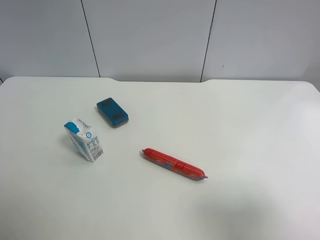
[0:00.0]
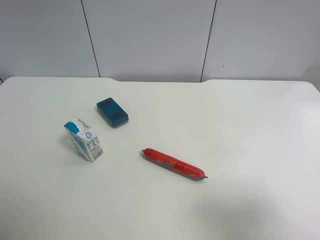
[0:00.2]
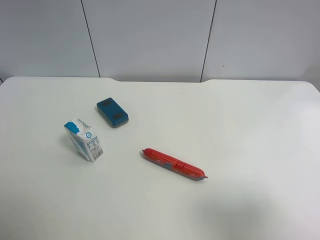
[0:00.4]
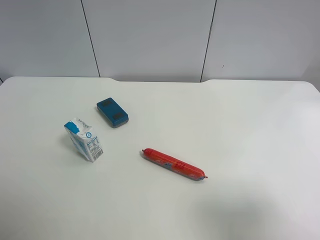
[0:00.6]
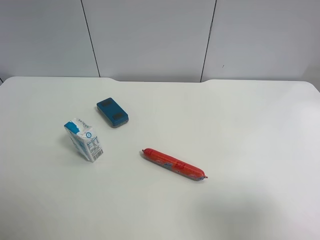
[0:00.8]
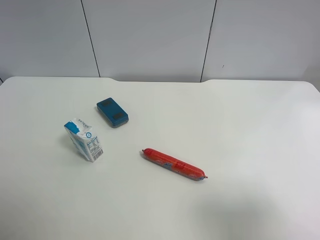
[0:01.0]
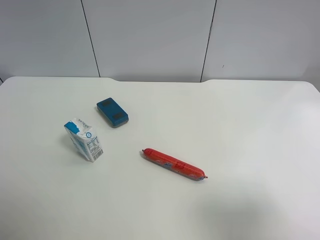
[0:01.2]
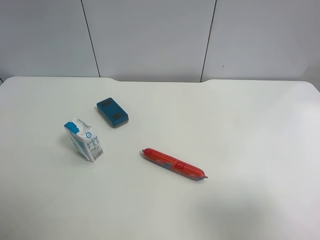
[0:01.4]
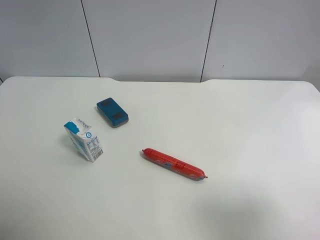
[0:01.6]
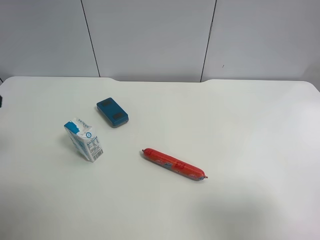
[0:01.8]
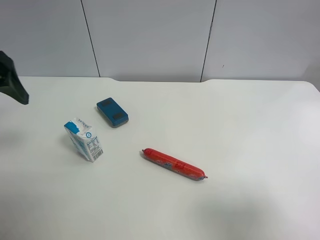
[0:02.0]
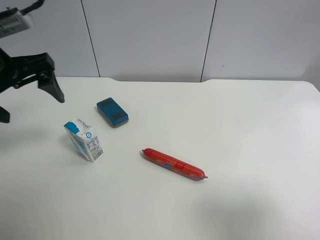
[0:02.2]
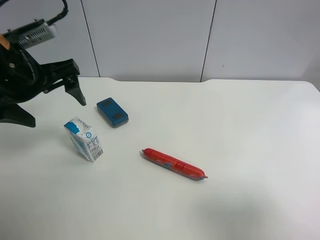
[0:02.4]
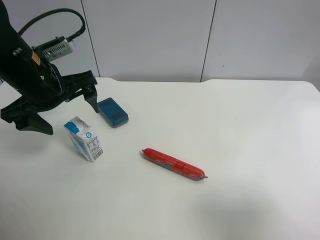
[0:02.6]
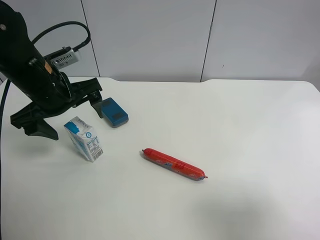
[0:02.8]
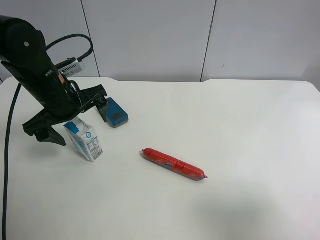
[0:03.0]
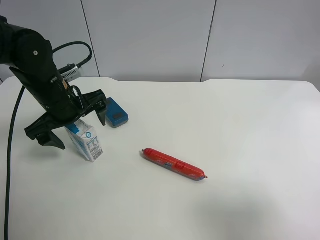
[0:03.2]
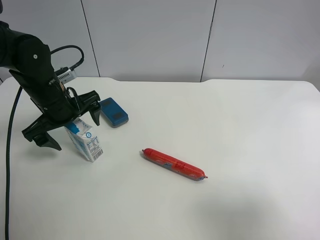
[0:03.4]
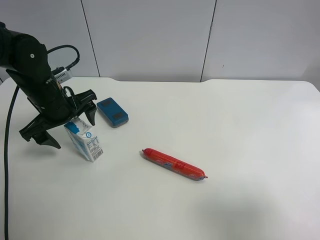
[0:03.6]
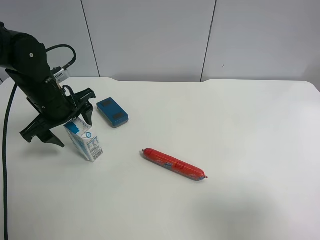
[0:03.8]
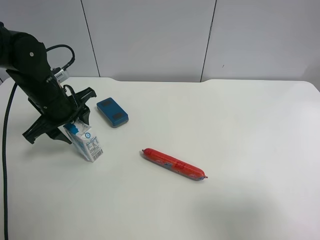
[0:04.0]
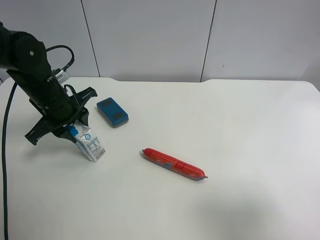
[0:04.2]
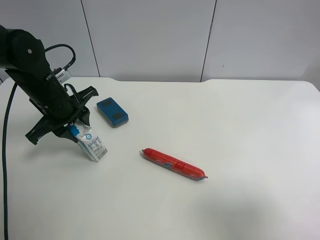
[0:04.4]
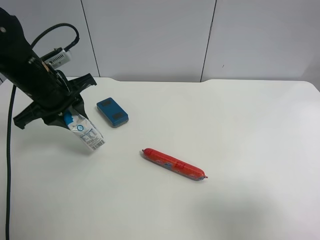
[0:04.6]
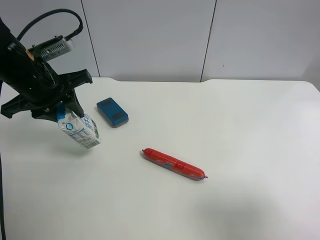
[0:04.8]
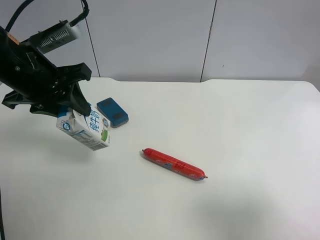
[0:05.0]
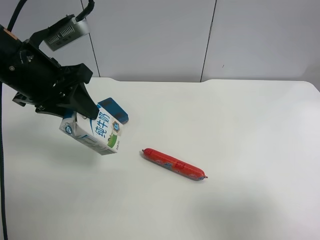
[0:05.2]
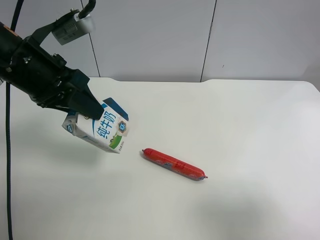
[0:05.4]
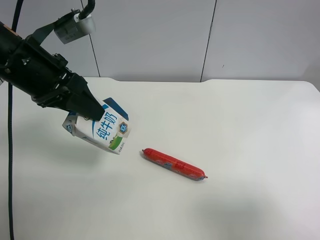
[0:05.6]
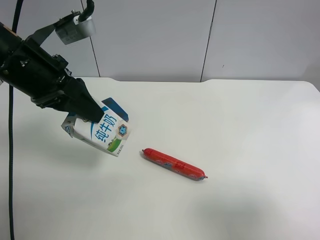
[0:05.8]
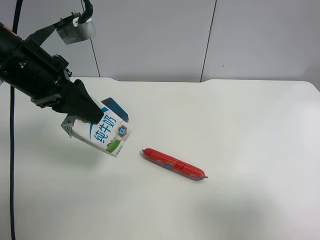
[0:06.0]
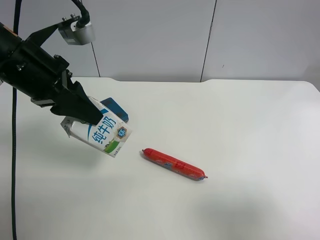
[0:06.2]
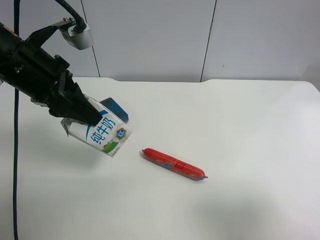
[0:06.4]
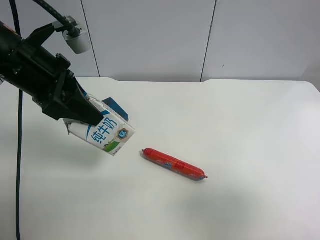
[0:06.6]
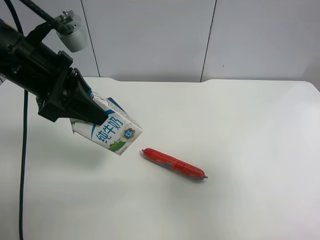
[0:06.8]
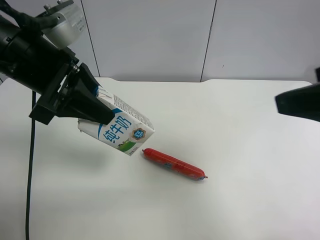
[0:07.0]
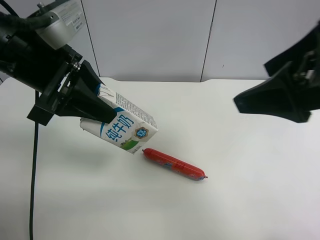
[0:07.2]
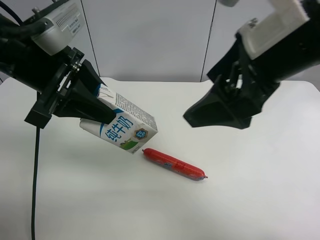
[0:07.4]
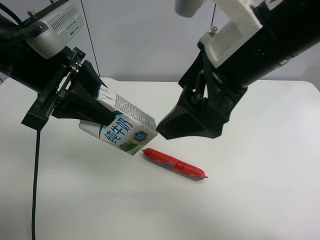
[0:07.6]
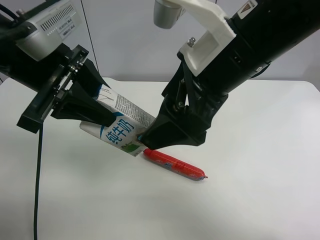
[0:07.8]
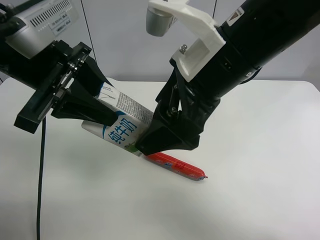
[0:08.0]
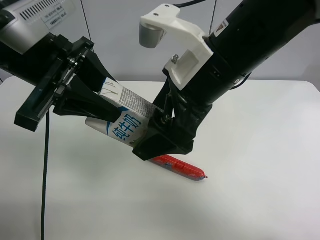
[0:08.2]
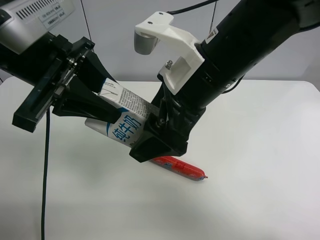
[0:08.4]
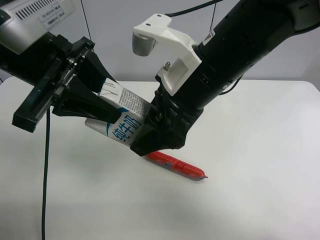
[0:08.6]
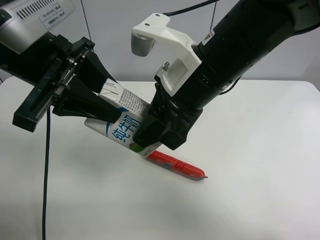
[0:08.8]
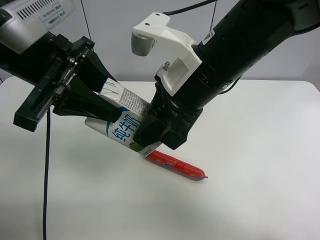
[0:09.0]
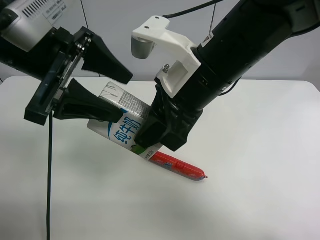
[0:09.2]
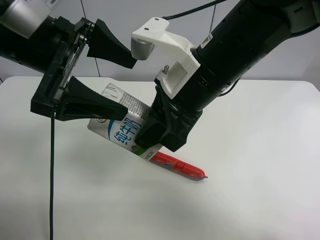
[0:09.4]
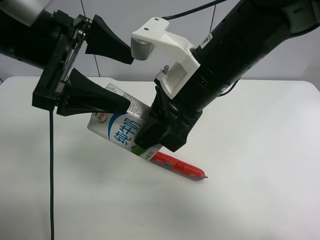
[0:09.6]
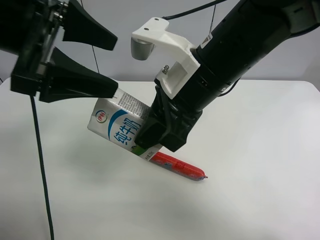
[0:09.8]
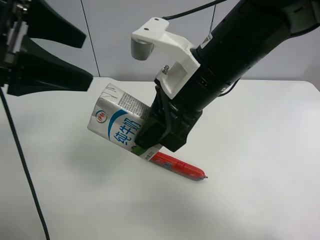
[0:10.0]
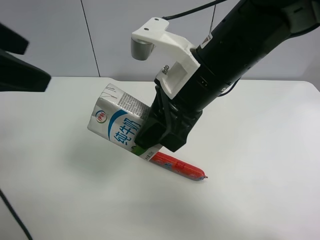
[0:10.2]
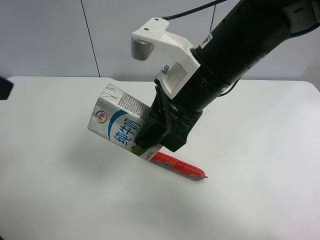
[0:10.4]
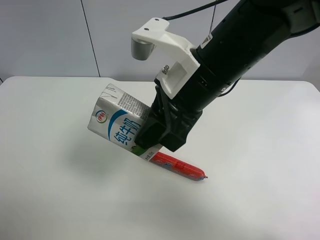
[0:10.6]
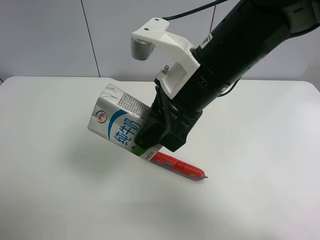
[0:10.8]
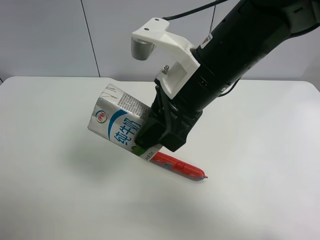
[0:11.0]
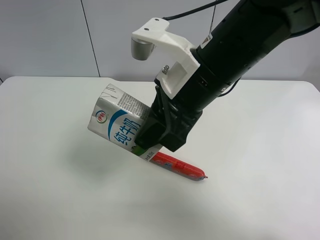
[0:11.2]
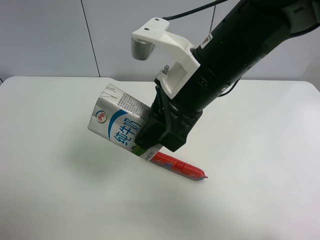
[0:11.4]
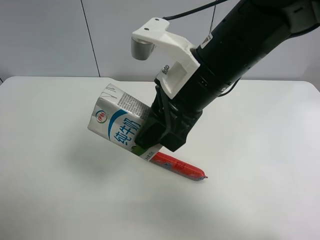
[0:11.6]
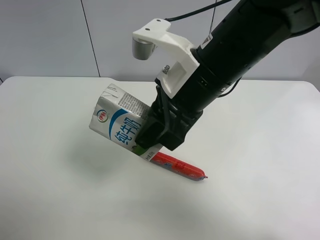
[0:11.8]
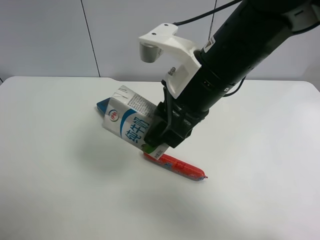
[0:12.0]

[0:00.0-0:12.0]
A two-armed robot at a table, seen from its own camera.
Task of the whole recording: use the left gripper to pick up the item and transfer it from the left gripper to the right gripper.
0:01.6 to 0:03.0: The left gripper heads forward, downward and to the right, covering roughly 25 cm.
0:03.0 to 0:04.4: The left gripper closes up.
0:04.4 to 0:06.0: The left gripper travels upward and backward by about 10 cm.
0:06.0 to 0:07.6: The right gripper moves to the left and forward, roughly 25 cm.
0:07.6 to 0:09.0: The right gripper shifts by approximately 5 cm, and closes its fingers.
0:09.0 to 0:10.4: The left gripper is displaced to the left, backward and upward by approximately 15 cm, and opens up.
0:10.4 to 0:12.0: The left gripper travels backward and downward by approximately 15 cm.

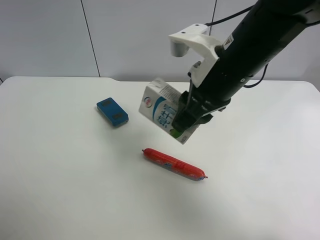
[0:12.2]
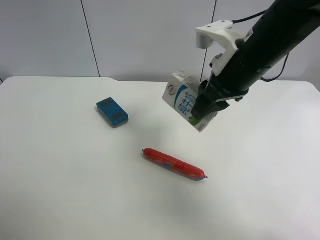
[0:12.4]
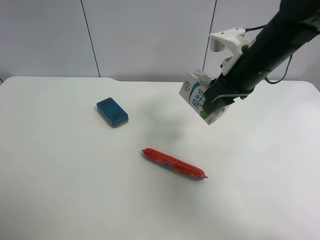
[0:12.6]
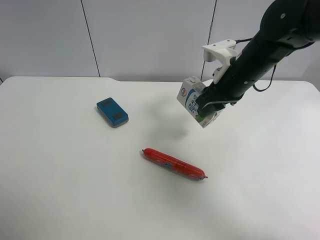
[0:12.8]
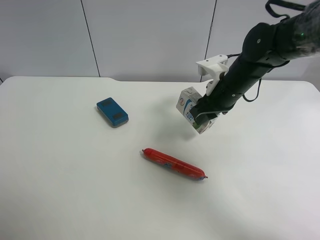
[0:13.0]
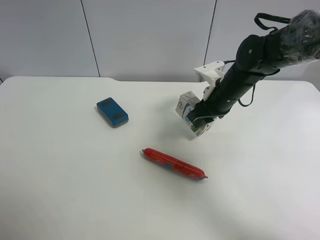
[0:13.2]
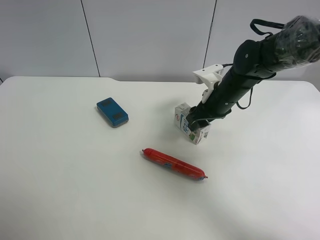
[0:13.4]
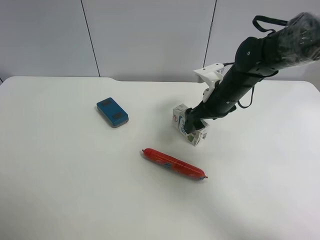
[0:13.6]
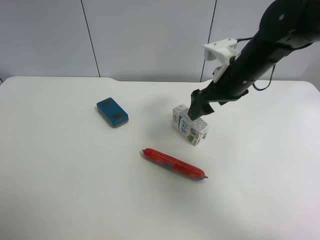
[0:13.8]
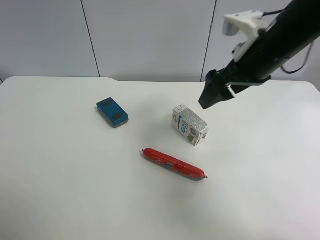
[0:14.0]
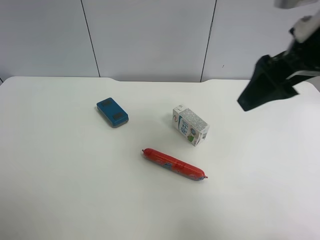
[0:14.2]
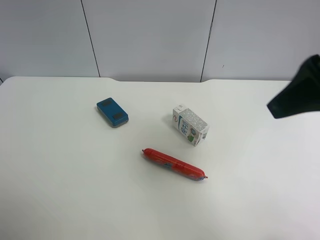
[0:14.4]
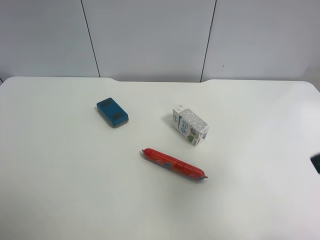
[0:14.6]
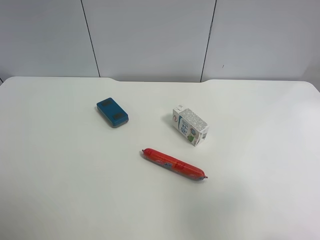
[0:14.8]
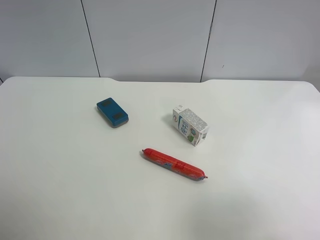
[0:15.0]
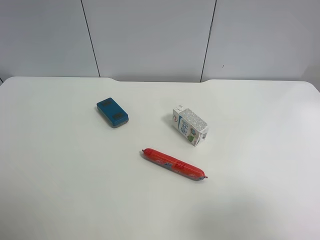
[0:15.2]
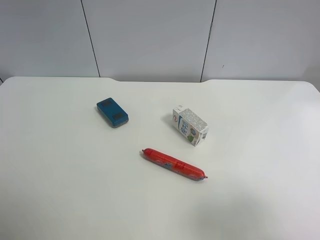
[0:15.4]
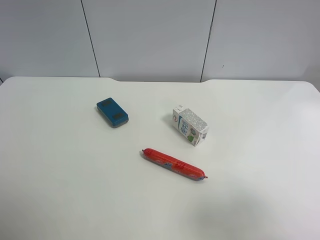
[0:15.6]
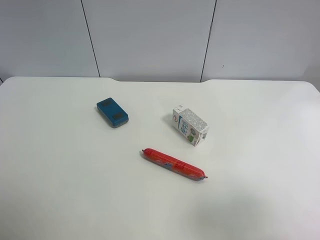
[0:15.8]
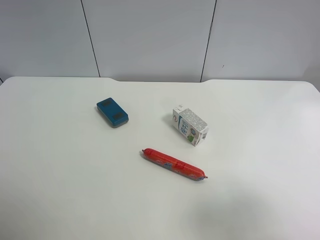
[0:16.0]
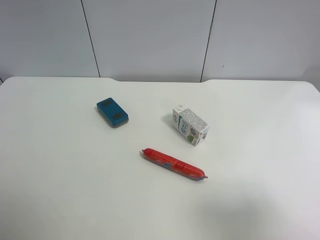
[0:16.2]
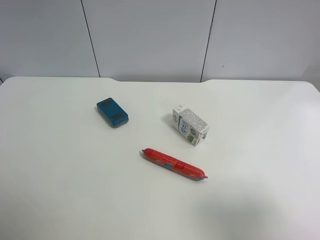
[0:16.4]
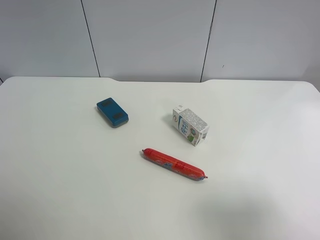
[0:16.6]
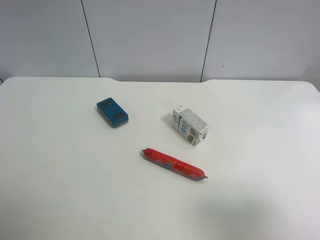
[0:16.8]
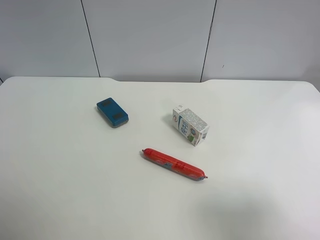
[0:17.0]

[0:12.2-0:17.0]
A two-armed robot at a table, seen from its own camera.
Task of the whole recording: use the left gripper to pick up the item and transfer it from the left gripper to the right gripper.
0:12.2 to 0:13.8: The right gripper travels forward and to the right by roughly 10 cm, moves some 15 cm downward and comes back, and opens.
0:13.8 to 0:15.4: The right gripper heads backward and to the right, covering about 35 cm.

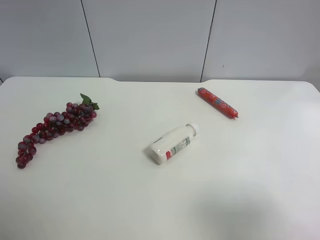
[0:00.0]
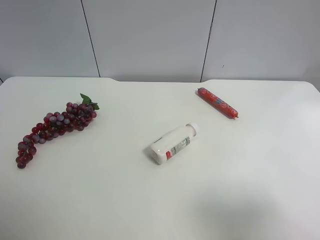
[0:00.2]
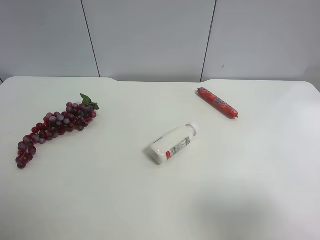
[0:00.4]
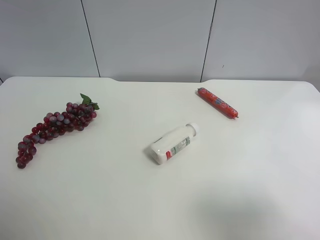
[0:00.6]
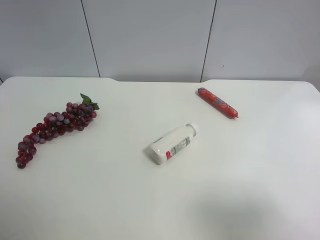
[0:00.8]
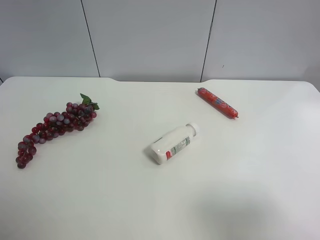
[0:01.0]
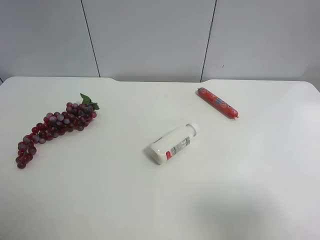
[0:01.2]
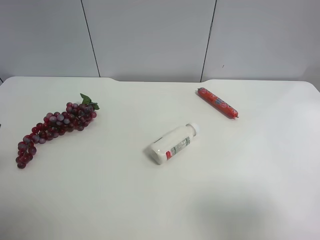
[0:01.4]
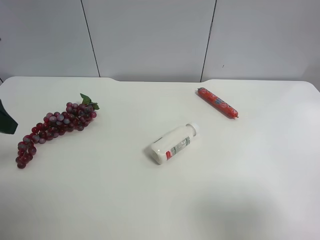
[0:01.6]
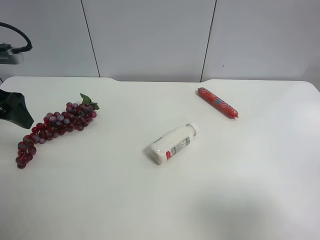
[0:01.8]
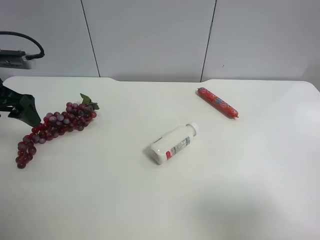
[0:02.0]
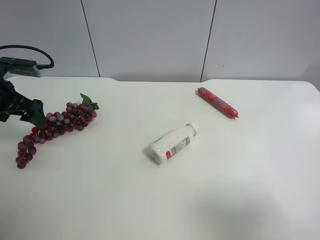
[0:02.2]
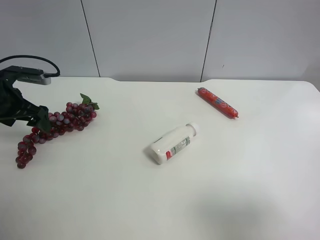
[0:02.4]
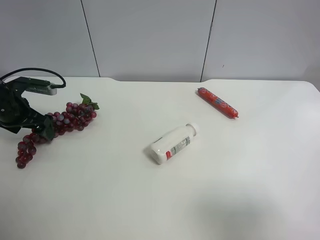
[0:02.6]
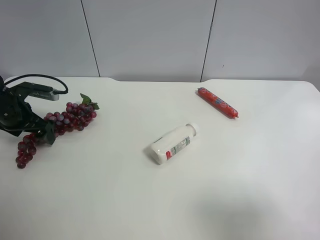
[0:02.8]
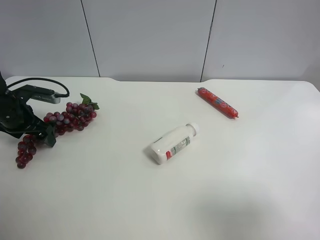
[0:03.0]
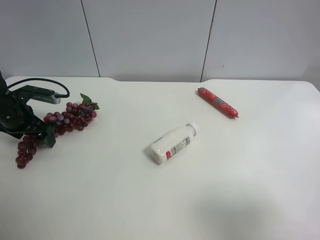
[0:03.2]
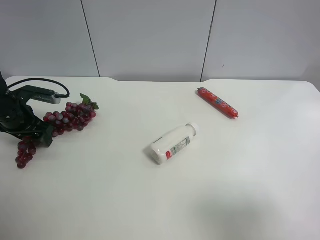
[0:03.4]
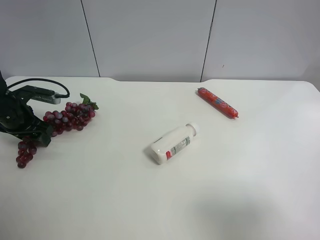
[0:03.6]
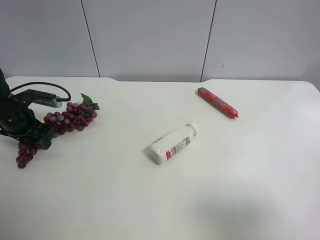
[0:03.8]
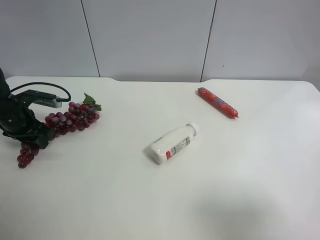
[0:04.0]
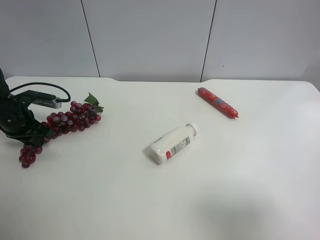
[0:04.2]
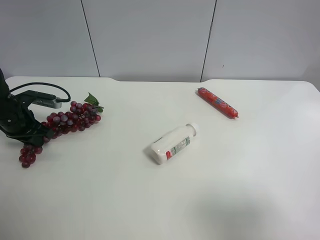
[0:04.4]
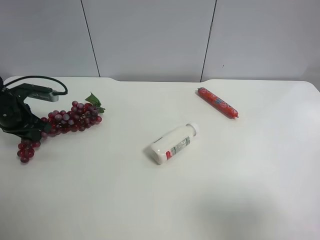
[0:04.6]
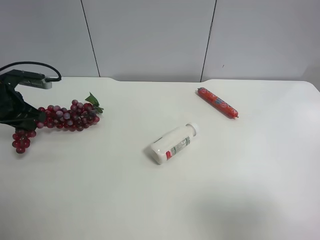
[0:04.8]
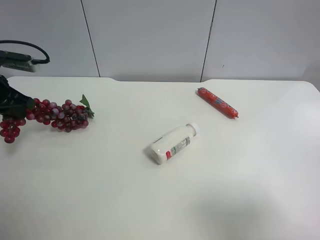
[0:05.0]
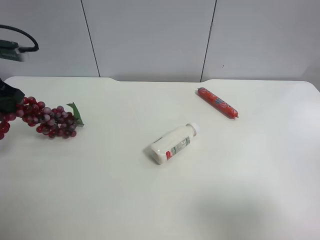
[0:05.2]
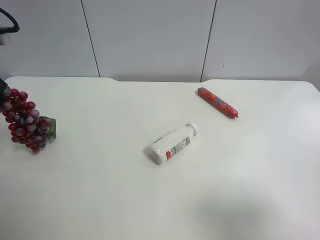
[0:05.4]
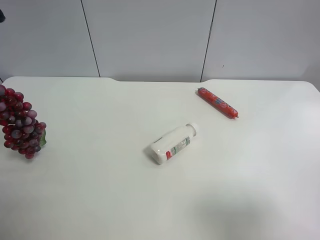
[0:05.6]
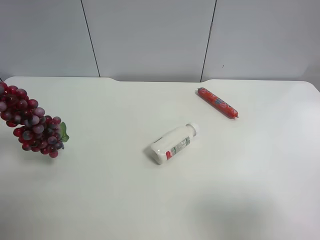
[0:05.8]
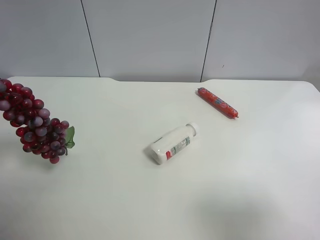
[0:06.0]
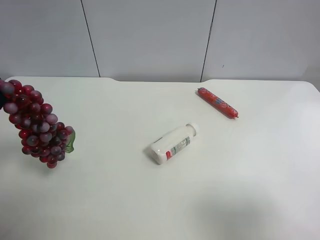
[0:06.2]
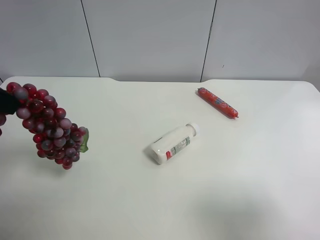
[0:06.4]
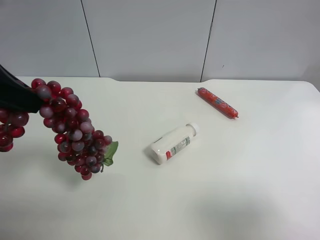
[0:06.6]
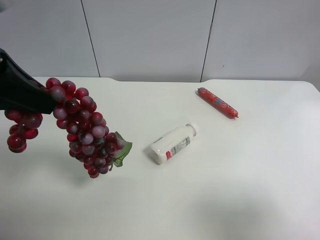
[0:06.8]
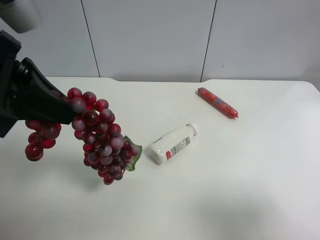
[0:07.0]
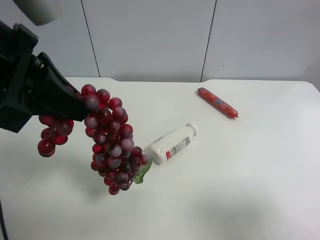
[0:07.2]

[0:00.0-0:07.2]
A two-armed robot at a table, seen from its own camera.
Task of the whole recording: use the left gripper to pick up the item and transfer it from the left gripper to the right gripper.
0:01.4 to 0:02.8: The left gripper goes some 25 cm forward and downward.
0:02.8 to 0:04.4: The left gripper closes.
0:04.4 to 0:05.8: The left gripper is displaced upward and backward by roughly 25 cm.
0:05.8 to 0:07.2: The left gripper shifts about 15 cm to the right.
